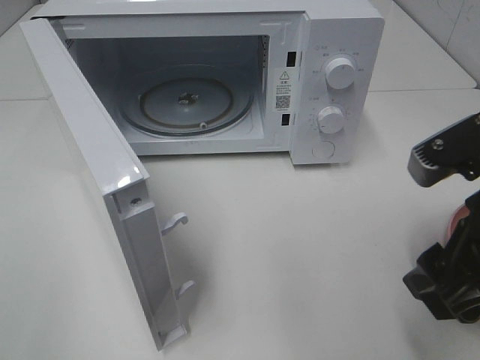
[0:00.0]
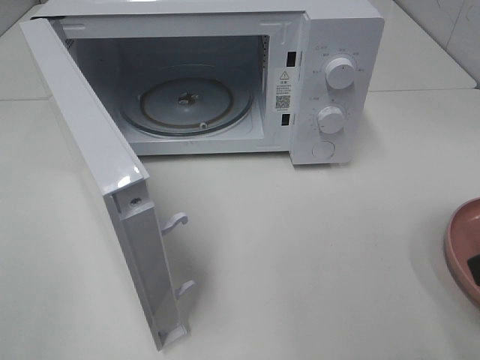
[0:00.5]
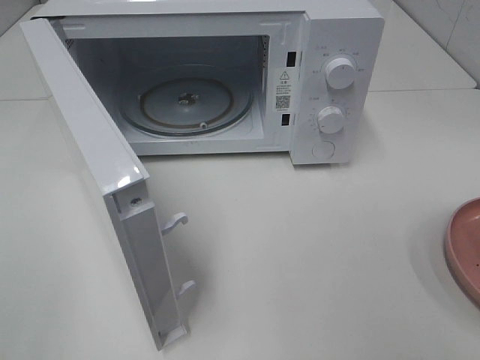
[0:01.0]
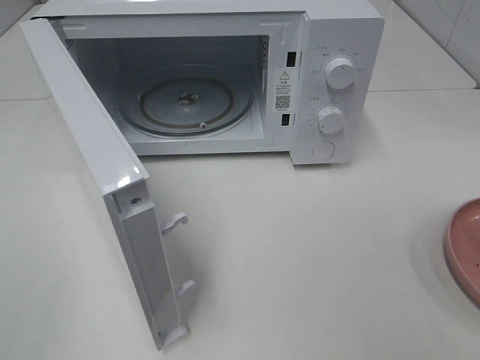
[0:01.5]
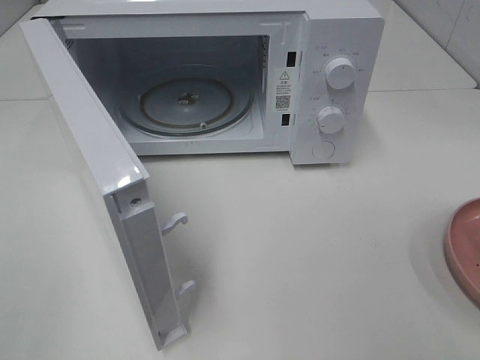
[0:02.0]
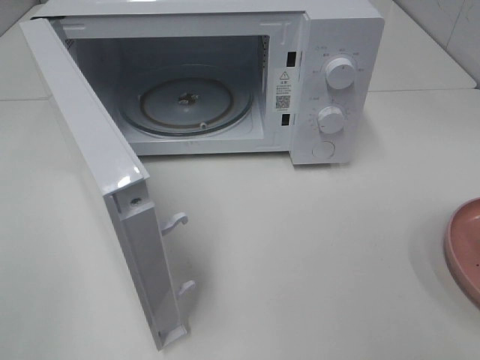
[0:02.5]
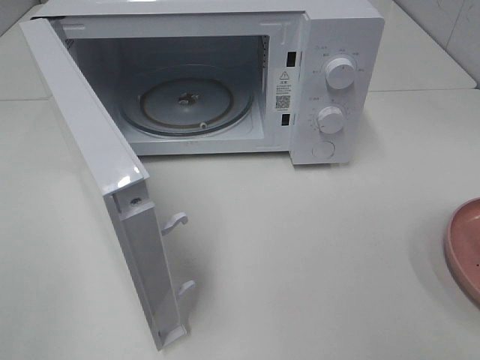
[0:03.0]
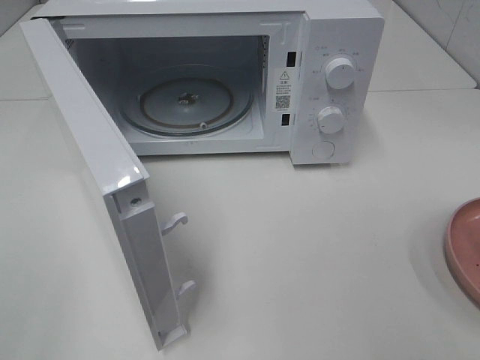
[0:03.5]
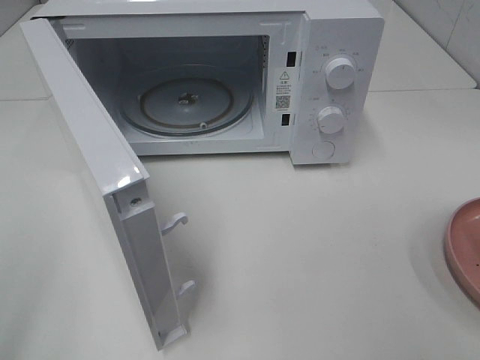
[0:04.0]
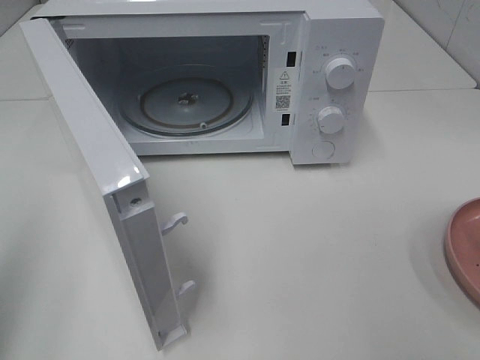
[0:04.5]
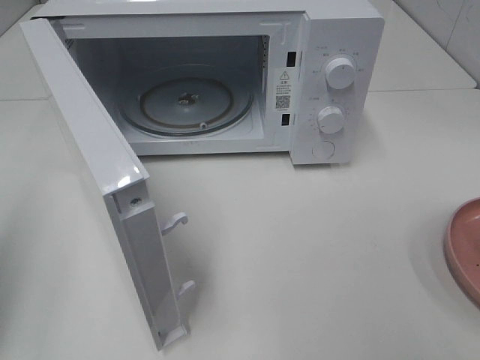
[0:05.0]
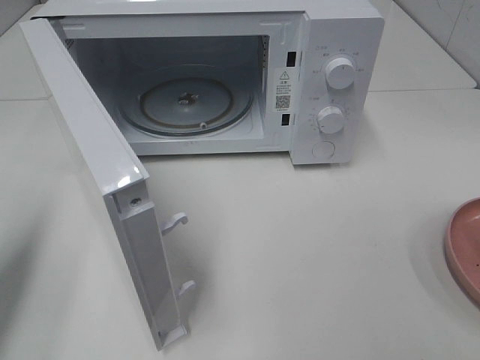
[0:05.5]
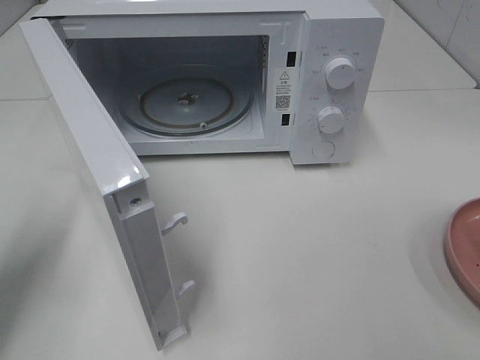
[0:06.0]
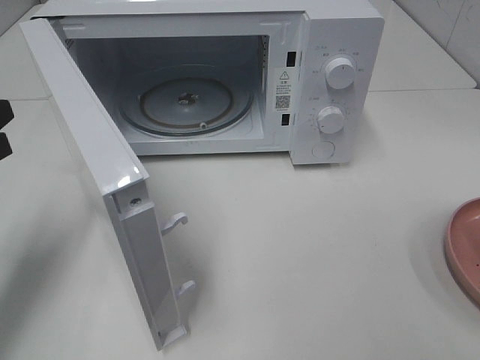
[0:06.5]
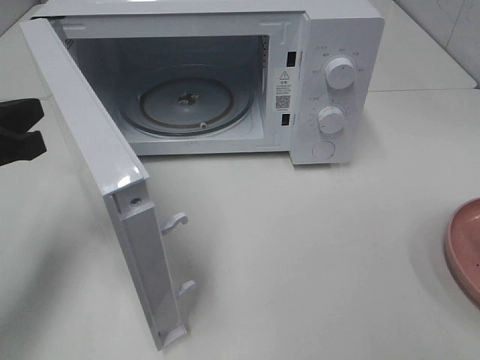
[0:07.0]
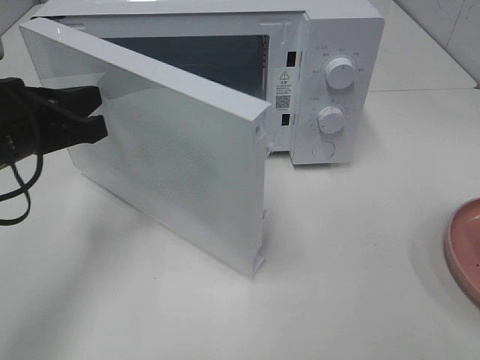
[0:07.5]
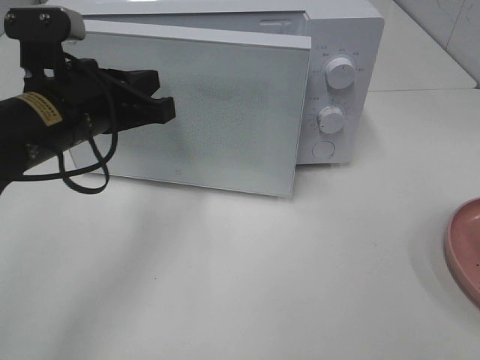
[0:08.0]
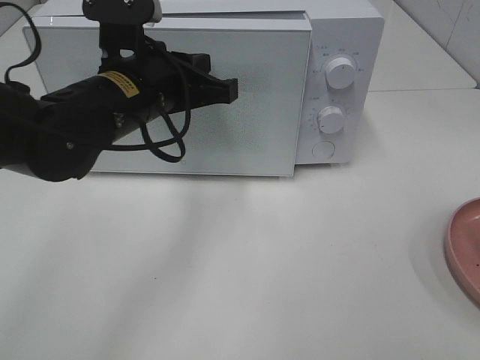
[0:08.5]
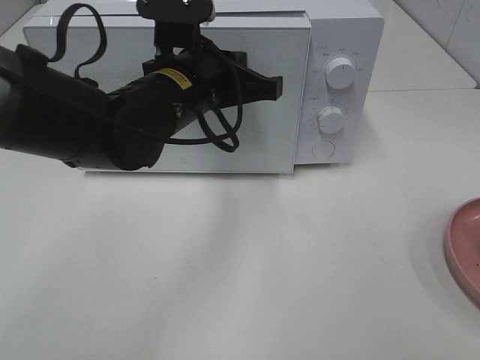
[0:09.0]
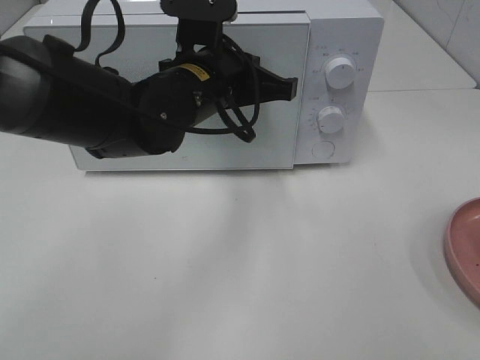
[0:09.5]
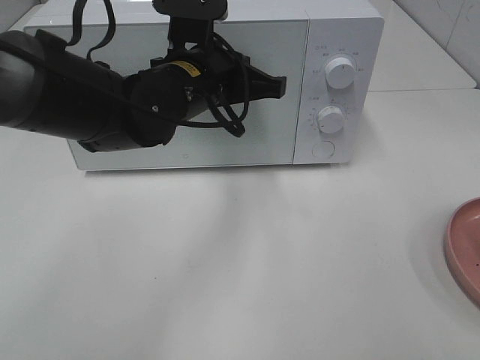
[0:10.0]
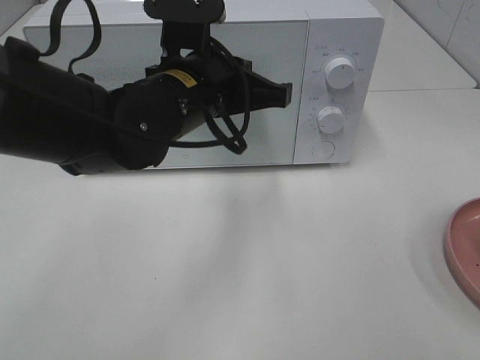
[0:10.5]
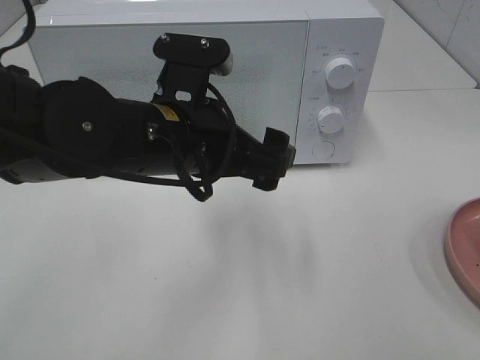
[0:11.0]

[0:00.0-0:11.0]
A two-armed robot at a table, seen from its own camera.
Task of the whole recording: Heat the burger.
Step, 0:00.0 to 0:10.0: Left hand: close the microwave door.
0:00.0 to 0:02.0: The right gripper shifts roughly 20 cm backward, to the right and upward.
0:02.0 to 0:03.5: Neither gripper changes place.
0:03.5 to 0:05.5: The left gripper goes roughly 20 cm forward, and closes.
0:05.5 to 0:07.5: The left gripper travels to the right and forward by about 15 cm.
0:07.5 to 0:09.0: The left gripper is displaced to the right by about 15 cm.
0:09.0 to 0:11.0: The left gripper travels backward by approximately 5 cm, and opens its fingers.

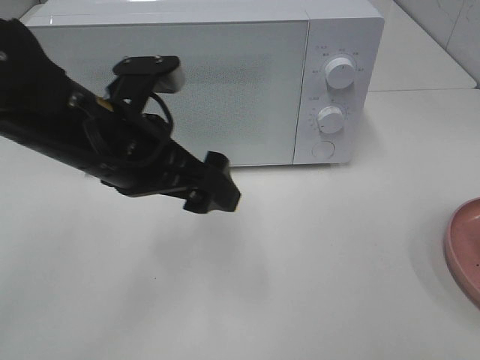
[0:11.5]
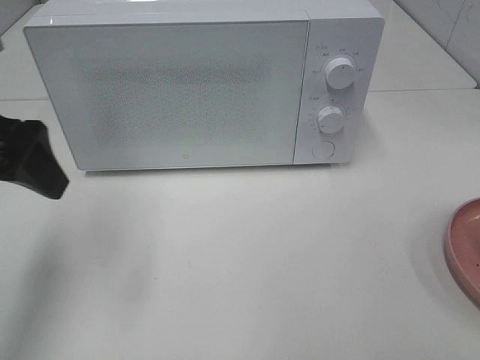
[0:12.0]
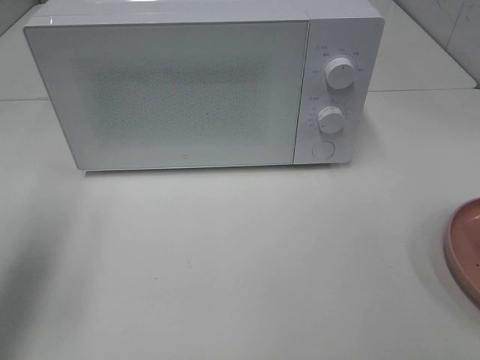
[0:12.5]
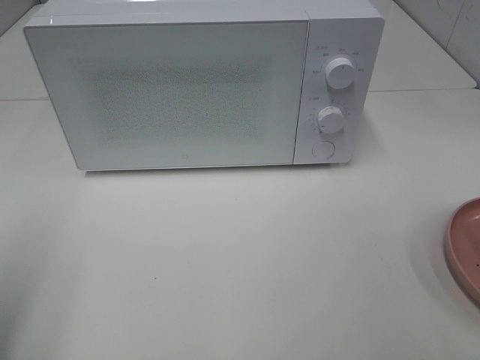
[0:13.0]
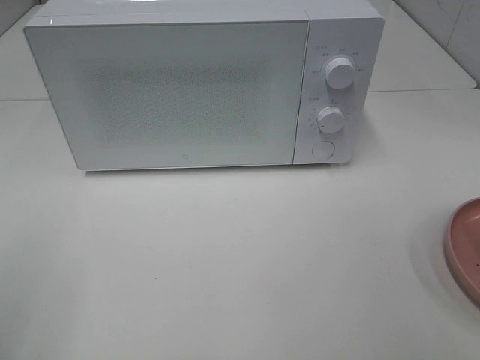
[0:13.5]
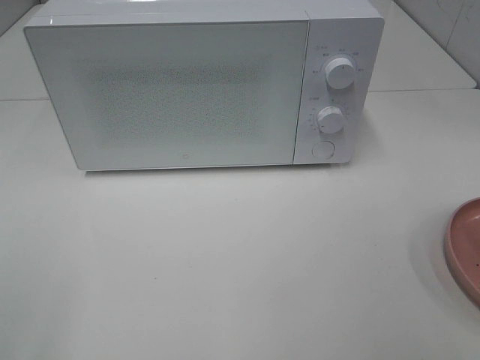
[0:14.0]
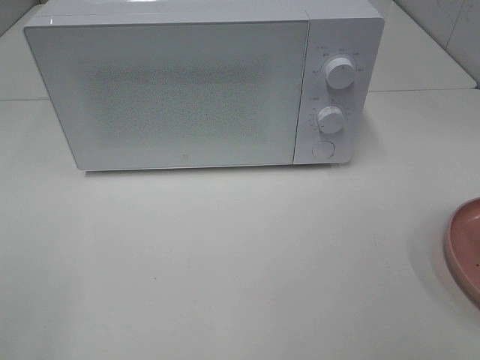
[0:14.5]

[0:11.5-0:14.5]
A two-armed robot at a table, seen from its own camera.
Task of the whole recording: Heat the burger.
0:11.5 to 0:13.0: The left gripper heads to the left and backward, covering some 25 cm.
